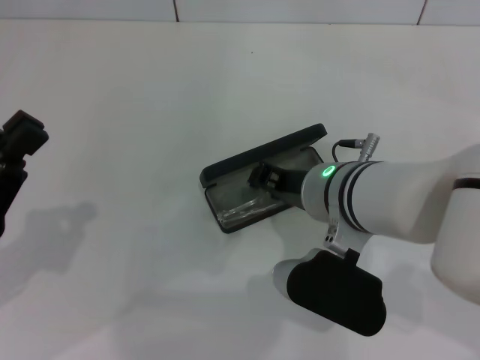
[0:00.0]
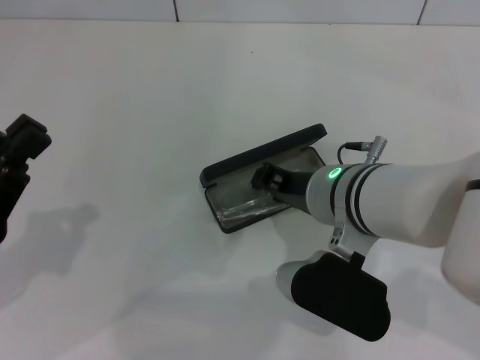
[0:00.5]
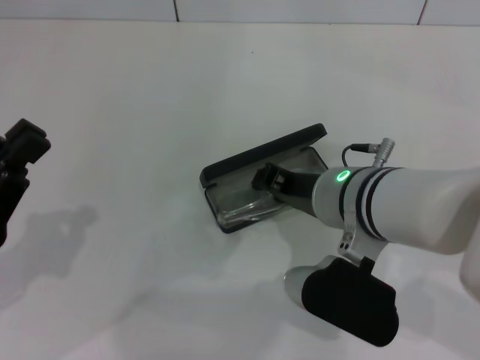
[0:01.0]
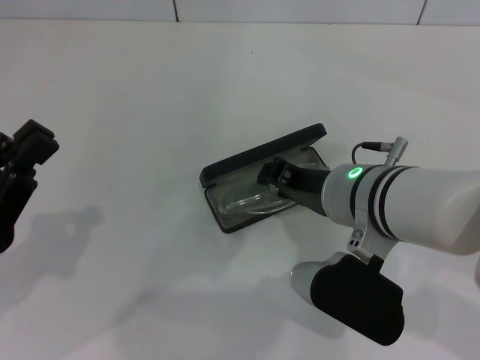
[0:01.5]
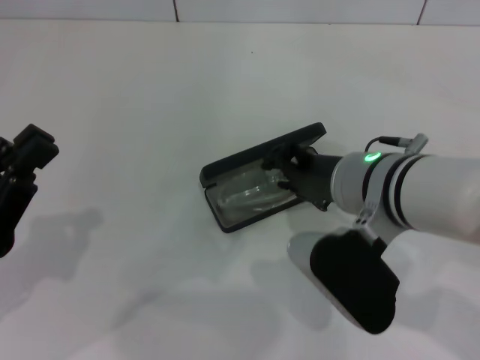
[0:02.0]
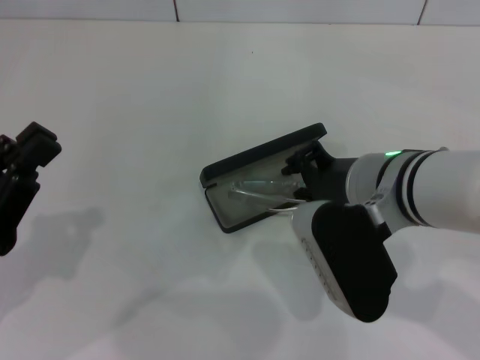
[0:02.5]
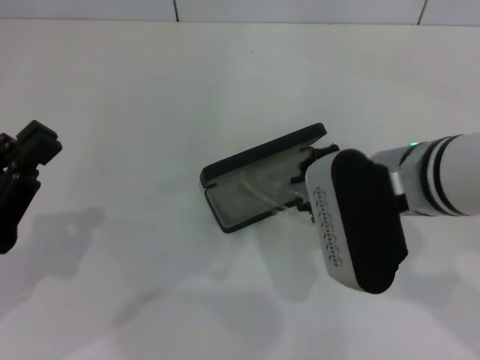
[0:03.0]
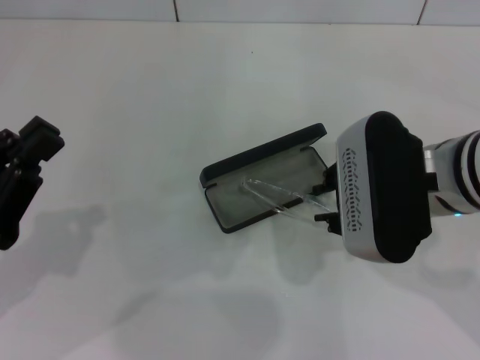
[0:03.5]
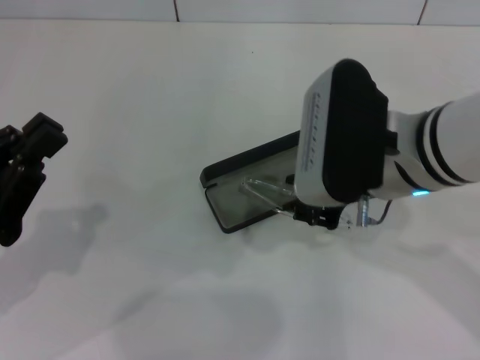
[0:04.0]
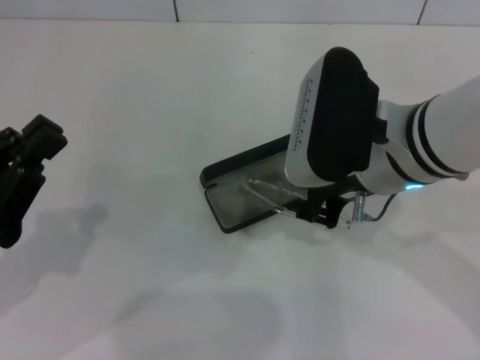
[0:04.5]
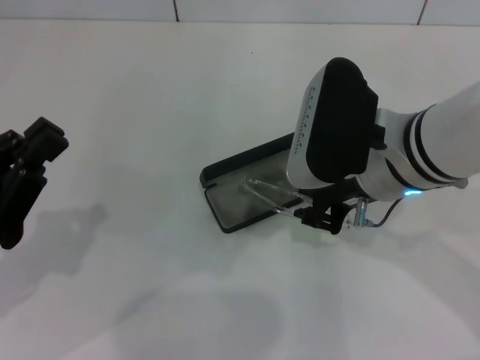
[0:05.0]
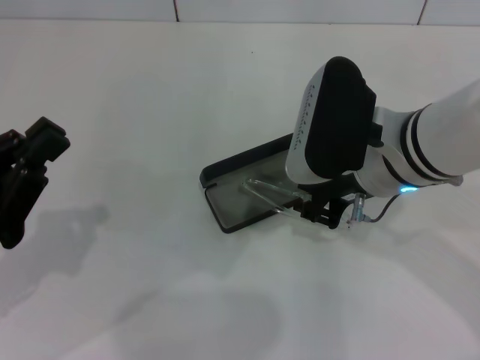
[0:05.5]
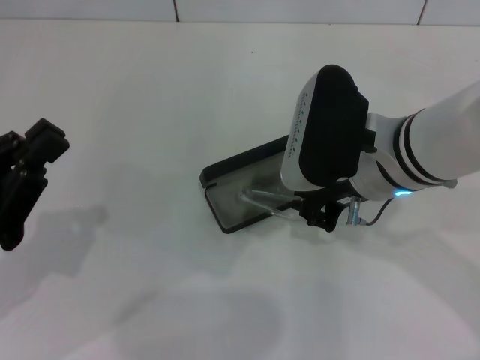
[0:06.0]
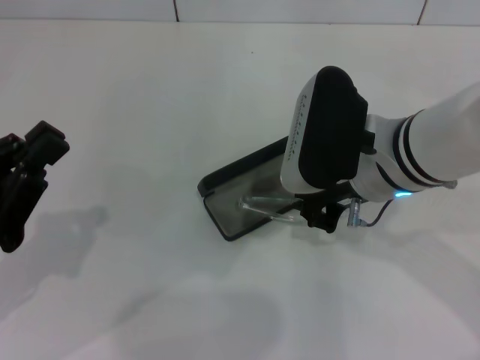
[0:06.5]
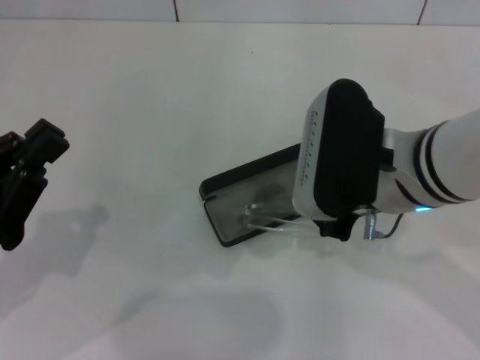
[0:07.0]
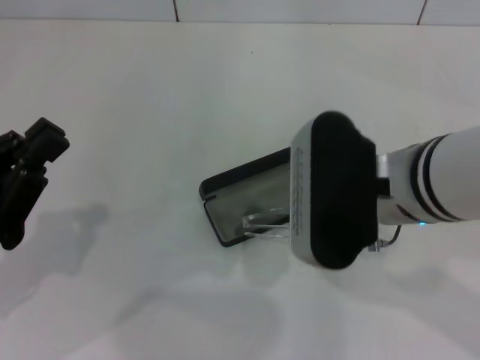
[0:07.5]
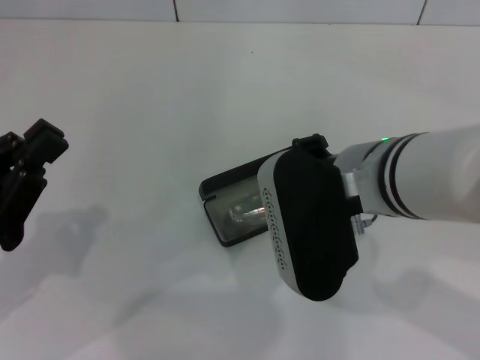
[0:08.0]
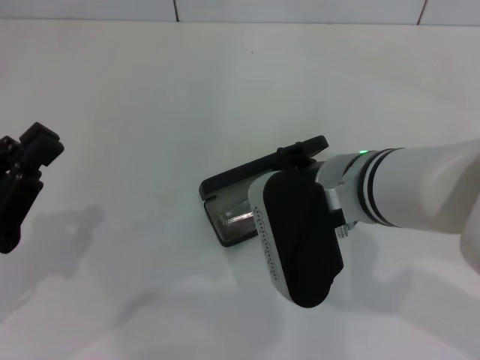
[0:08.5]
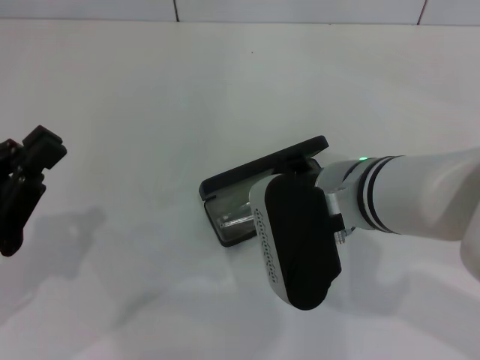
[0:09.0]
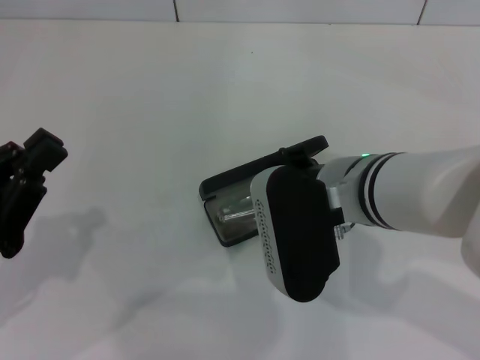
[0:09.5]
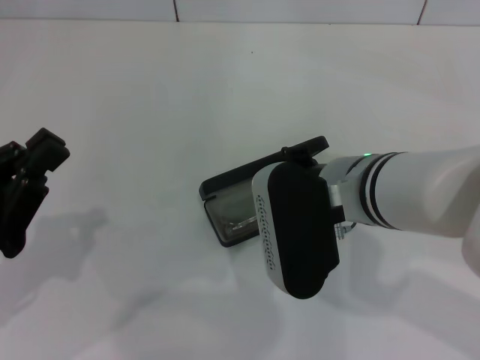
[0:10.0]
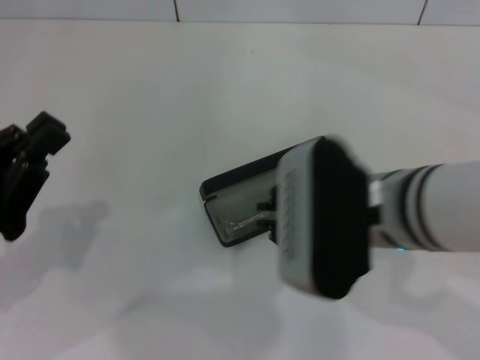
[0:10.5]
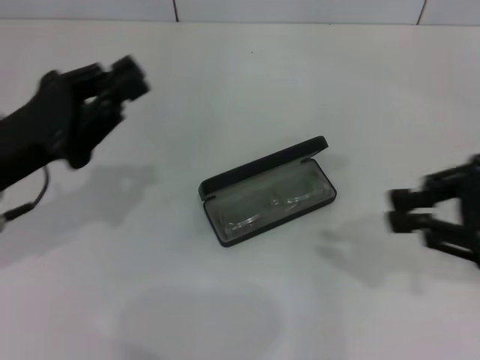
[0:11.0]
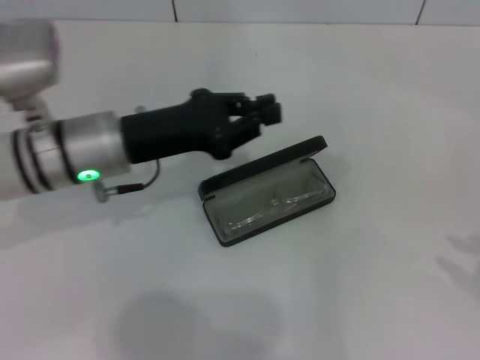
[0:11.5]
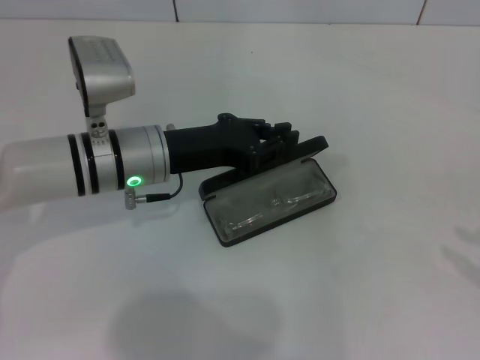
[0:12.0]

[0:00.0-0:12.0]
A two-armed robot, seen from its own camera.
Step, 0:00.0 to 0:09.5: Put the glasses into the case with your right hand.
0:00.0 to 0:02.0: The grippers stay close to where they were, moving slightly.
0:04.0 to 0:06.0: The grippers make only small movements.
0:06.0 to 0:08.0: The right gripper moves about 5 cm.
0:08.0 to 0:10.0: There are only small adjustments of the grippers.
0:10.0 to 0:12.0: The left gripper shifts roughly 20 cm forward and to the right; the right gripper goes roughly 35 cm to the right, and opens up.

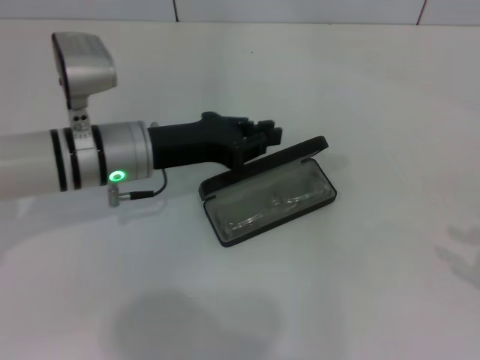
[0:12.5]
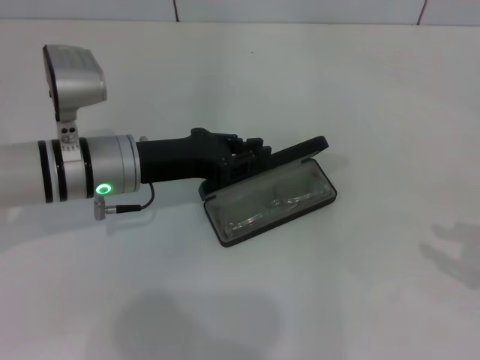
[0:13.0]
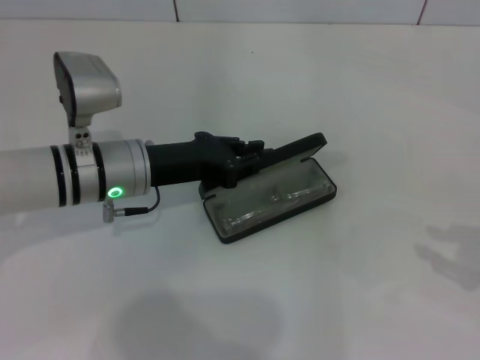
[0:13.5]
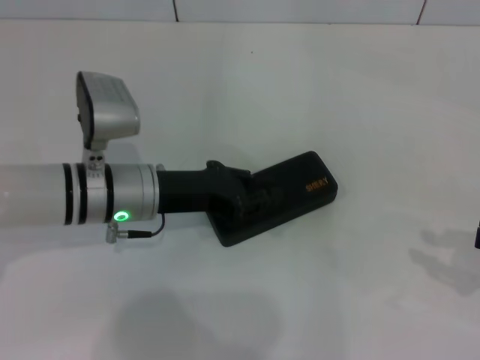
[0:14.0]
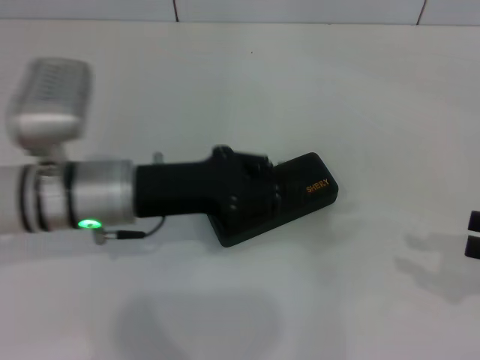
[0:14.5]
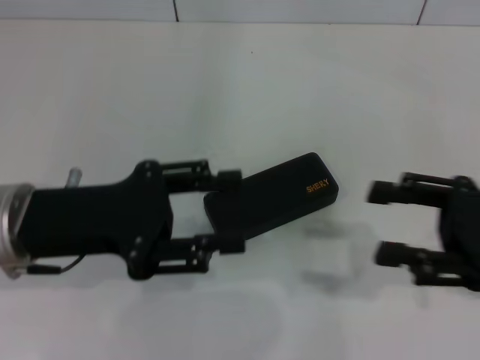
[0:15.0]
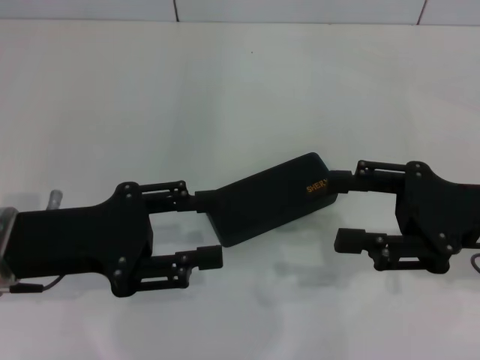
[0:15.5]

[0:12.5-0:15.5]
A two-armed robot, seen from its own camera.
0:12.5 to 0:14.0: There are only small adjustments of the grippers.
0:14.0 to 0:15.5: The left gripper is displaced backward, to the left and upward by about 15 cm, and opens, while the right gripper moves to the left, approximately 10 cm, and opens up.
